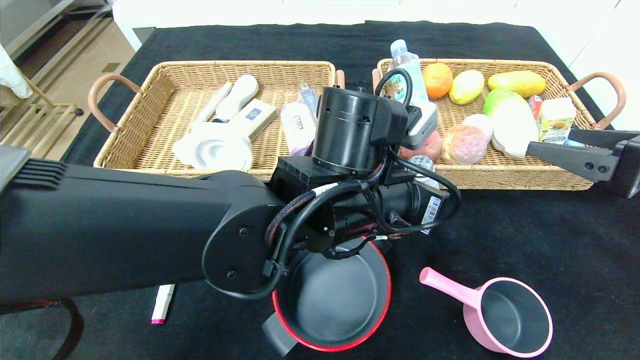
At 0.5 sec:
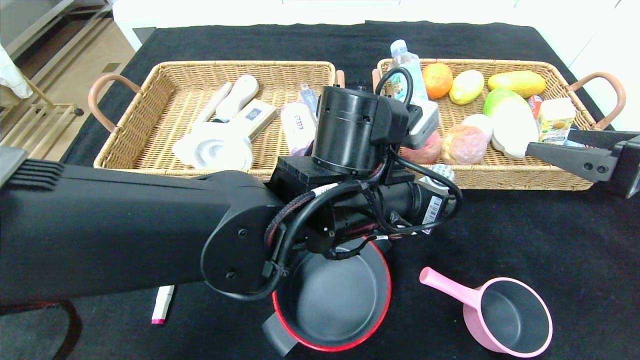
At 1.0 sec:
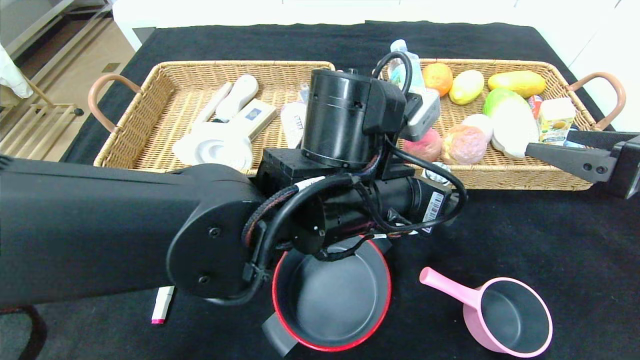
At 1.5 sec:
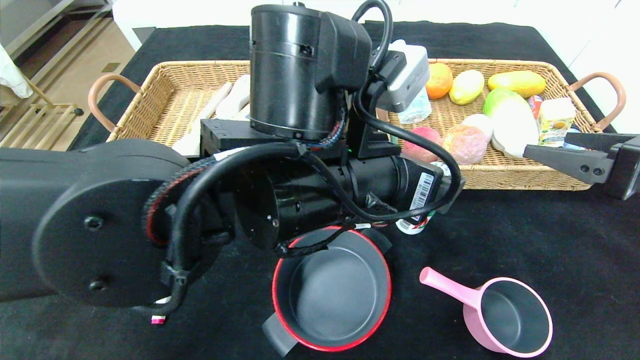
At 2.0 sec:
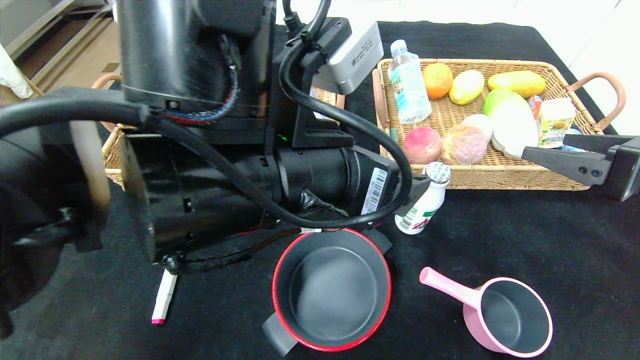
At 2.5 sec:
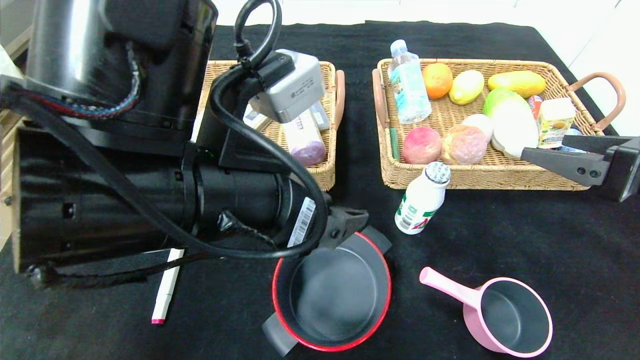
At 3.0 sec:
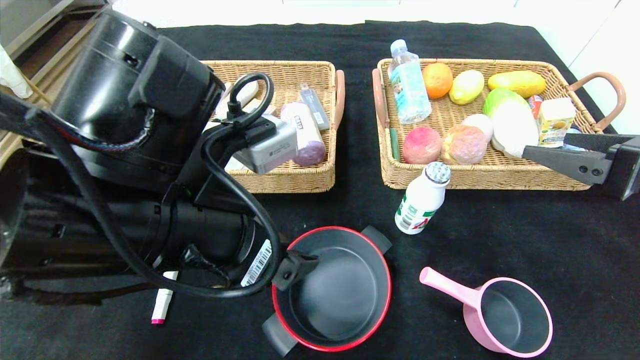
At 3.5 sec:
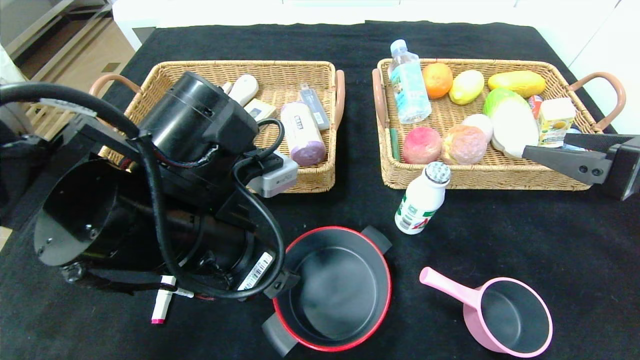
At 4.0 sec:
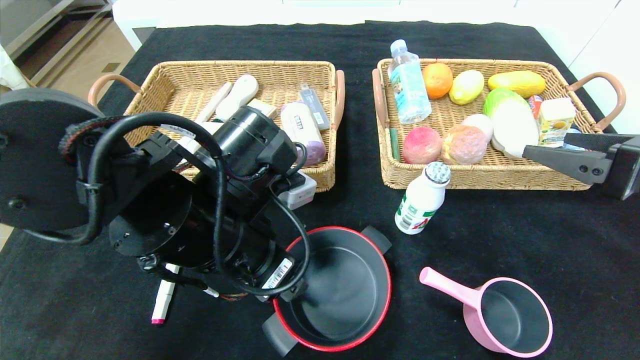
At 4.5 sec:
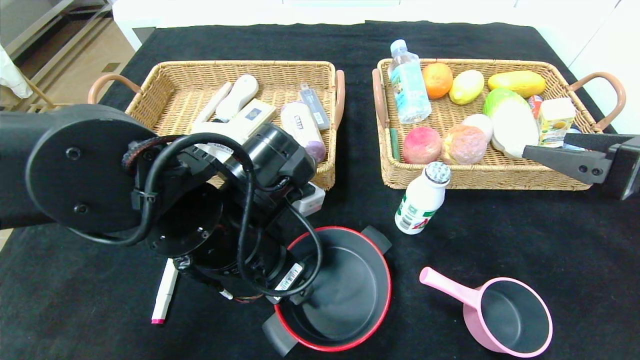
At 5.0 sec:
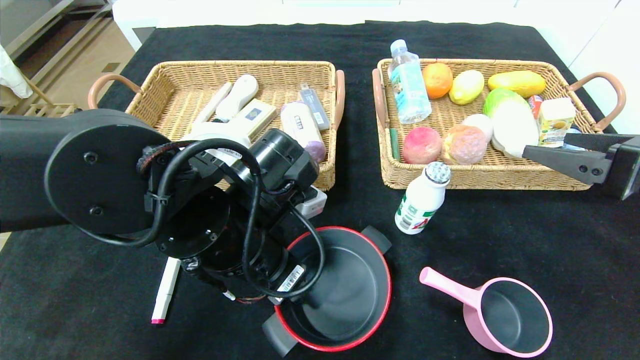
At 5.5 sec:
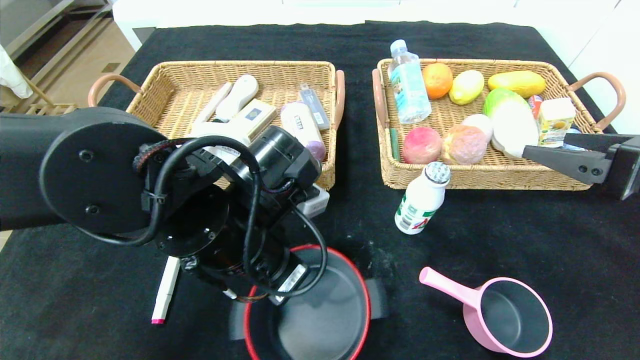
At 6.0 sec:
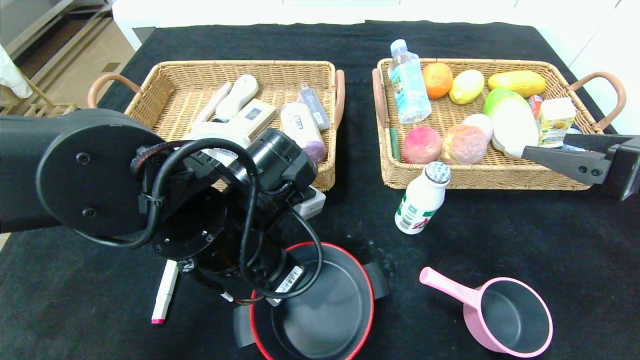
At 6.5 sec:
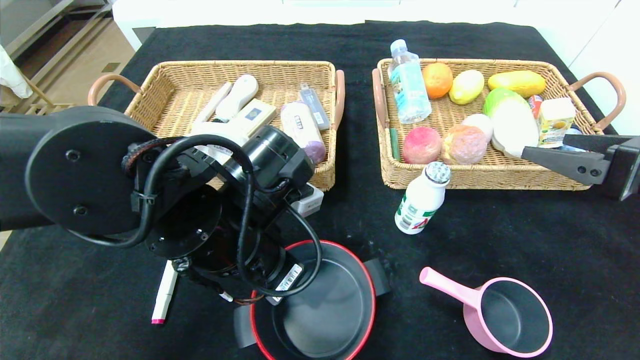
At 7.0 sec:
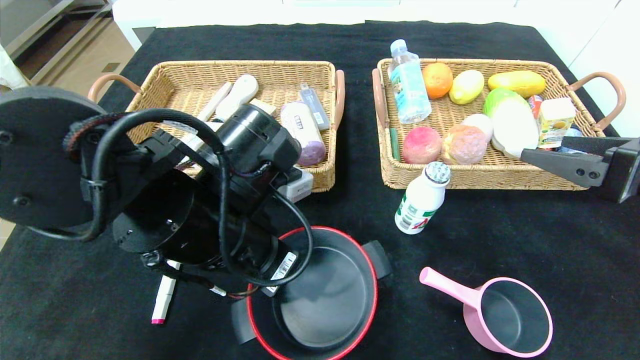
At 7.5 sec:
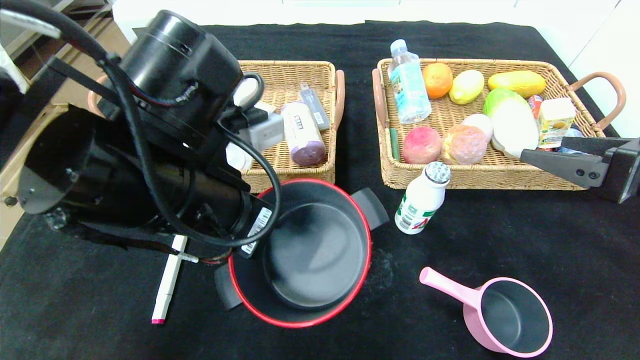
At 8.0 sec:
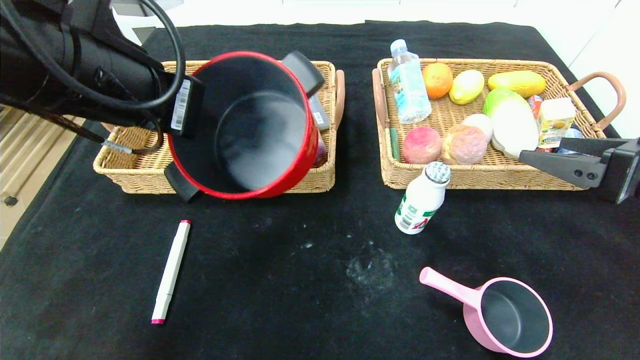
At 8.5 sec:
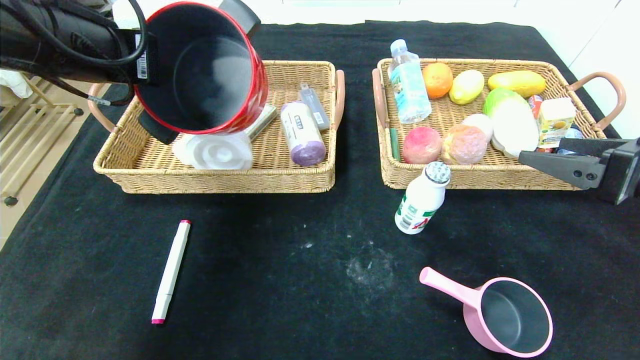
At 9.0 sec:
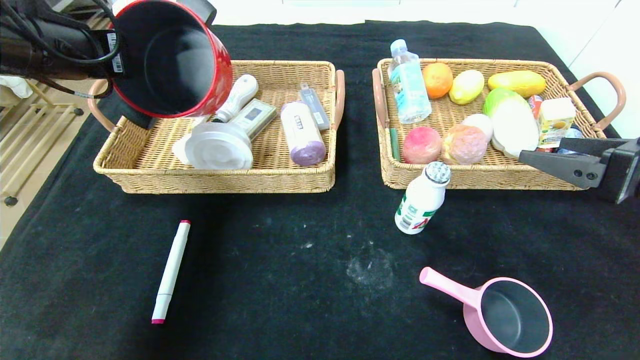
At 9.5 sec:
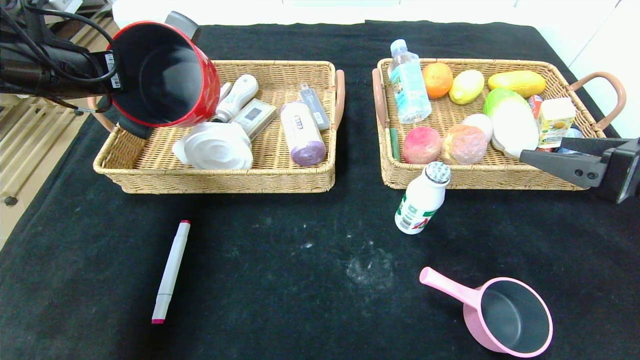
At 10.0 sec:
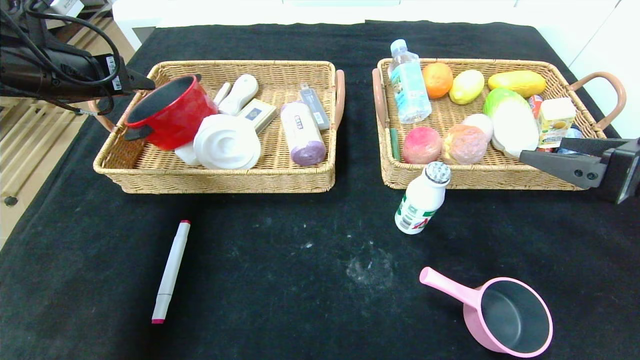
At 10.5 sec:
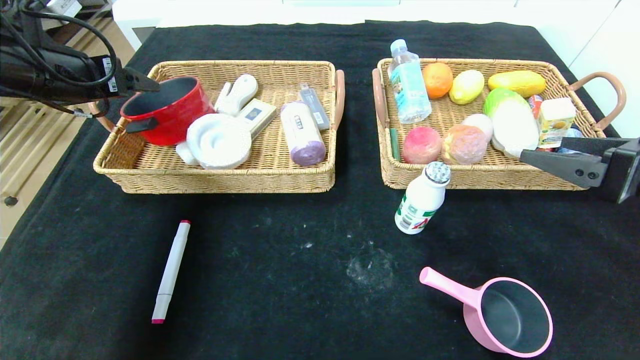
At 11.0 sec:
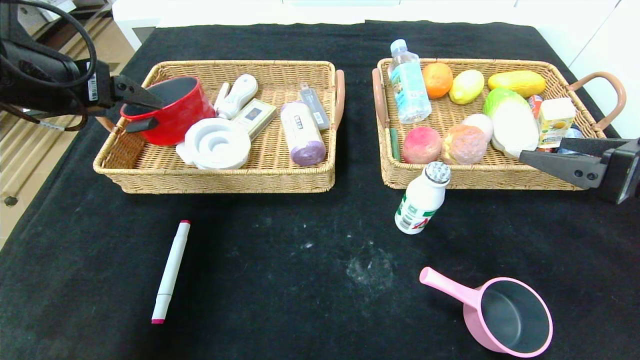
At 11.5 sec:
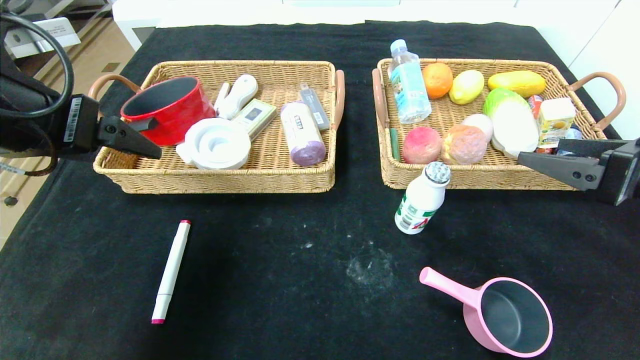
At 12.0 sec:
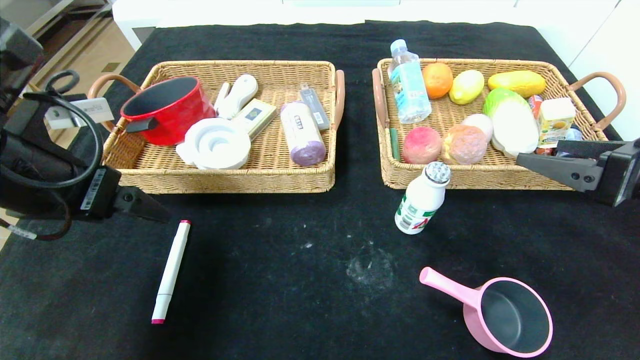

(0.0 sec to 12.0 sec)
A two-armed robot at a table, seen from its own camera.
Step, 0.0 sec - 2.0 sec: Place the ad milk in the center of the table.
Step, 2.5 sec - 11.5 sec: Pick up the red pot and put it in the left basket.
0.0 sec - 2.0 sec: The left gripper goes approximately 10 cm to the left, backward and upward, and opens.
2.0 sec - 4.0 sec: The left gripper goes some 5 cm downward.
4.0 sec - 6.0 sec: The left gripper closes.
6.0 sec - 8.0 sec: The left gripper moves upward and to the left, roughly 20 cm.
8.0 sec - 10.0 sec: The left gripper shifts roughly 20 cm to the left and forward, and opens its fingers.
10.0 sec - 12.0 sec: The left gripper travels backward, to the right and downward by some 15 cm, and opens its fingers.

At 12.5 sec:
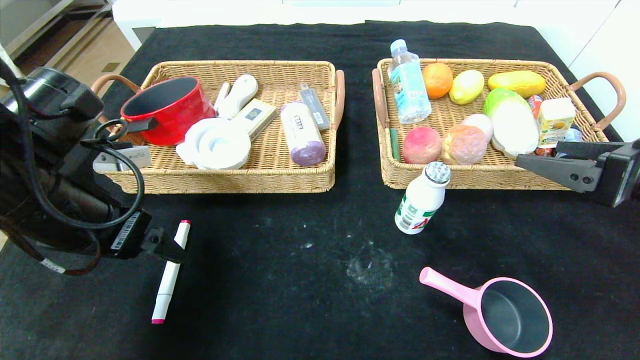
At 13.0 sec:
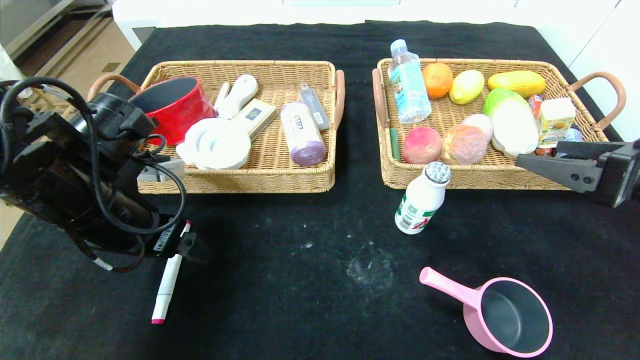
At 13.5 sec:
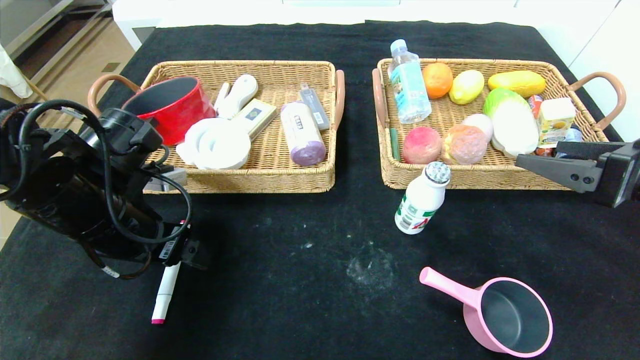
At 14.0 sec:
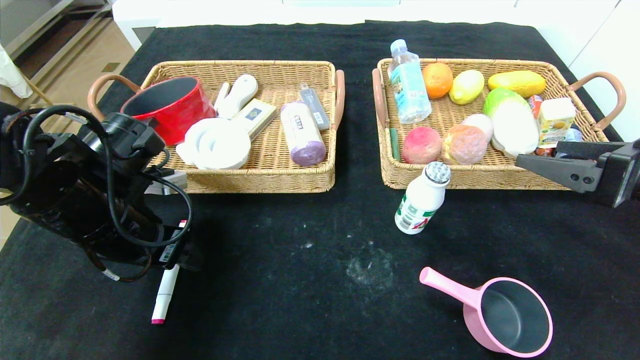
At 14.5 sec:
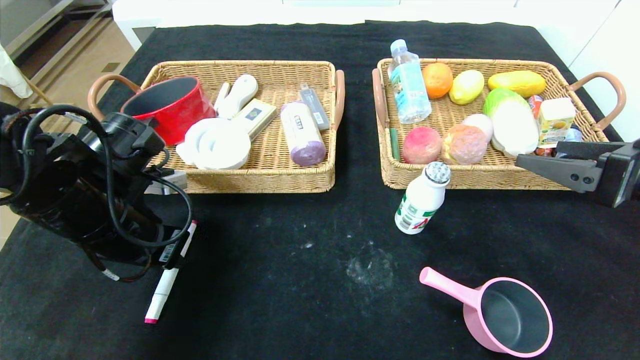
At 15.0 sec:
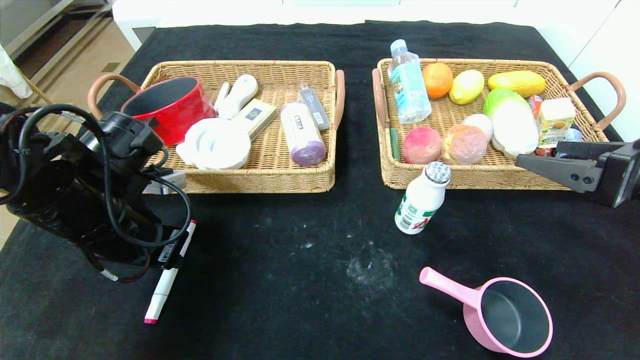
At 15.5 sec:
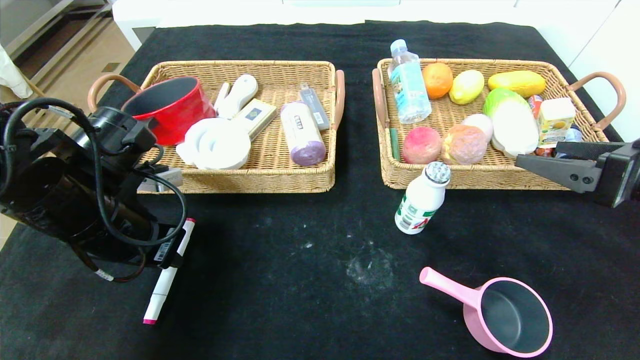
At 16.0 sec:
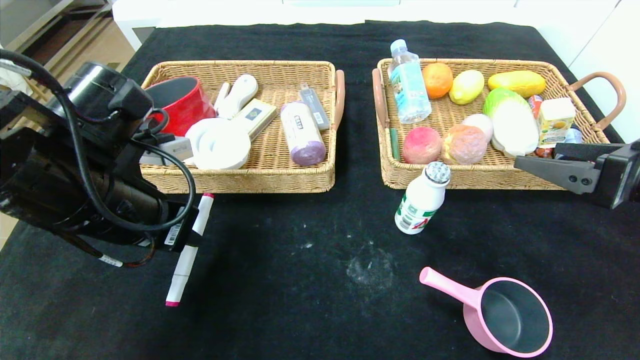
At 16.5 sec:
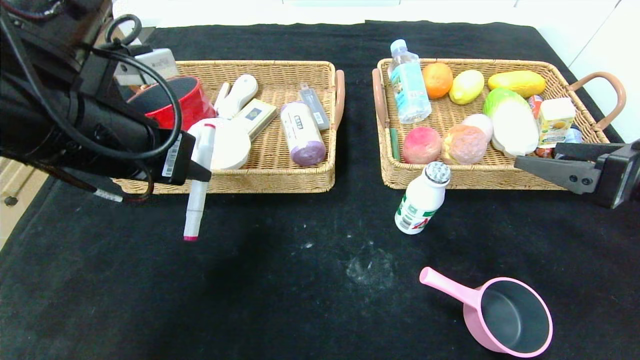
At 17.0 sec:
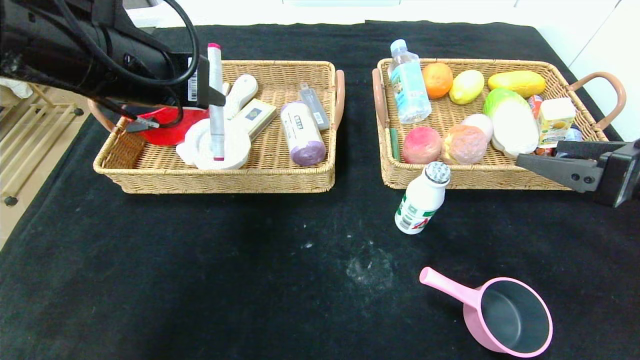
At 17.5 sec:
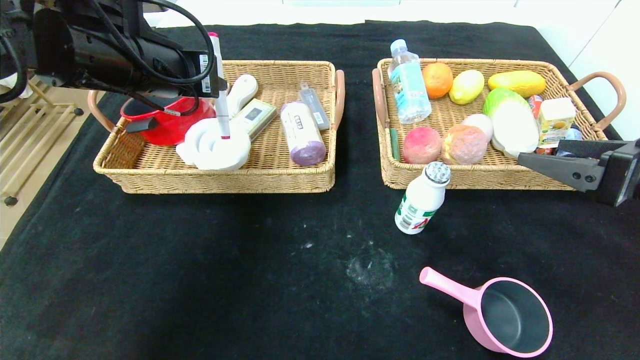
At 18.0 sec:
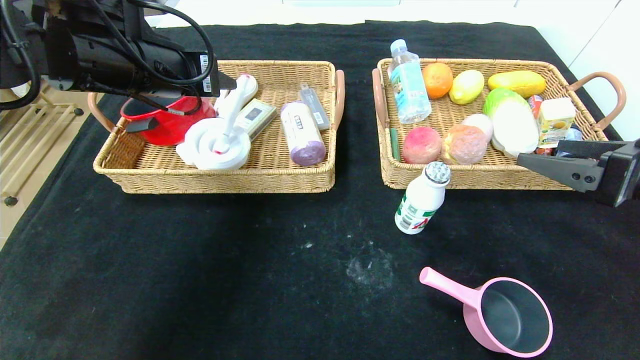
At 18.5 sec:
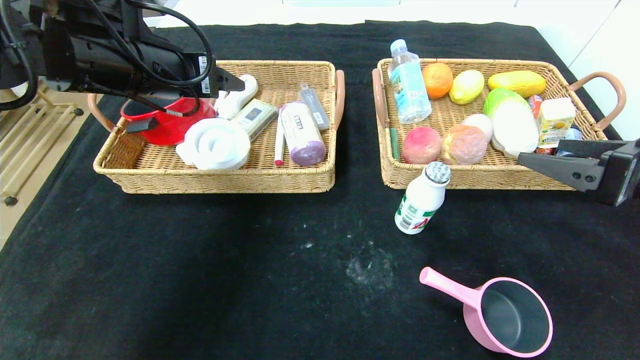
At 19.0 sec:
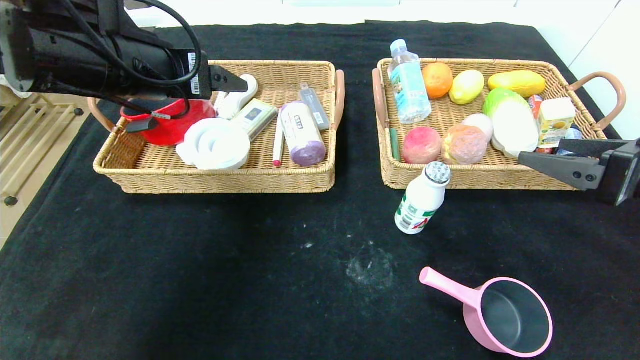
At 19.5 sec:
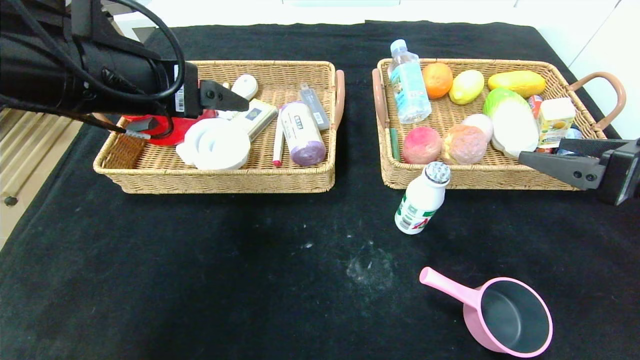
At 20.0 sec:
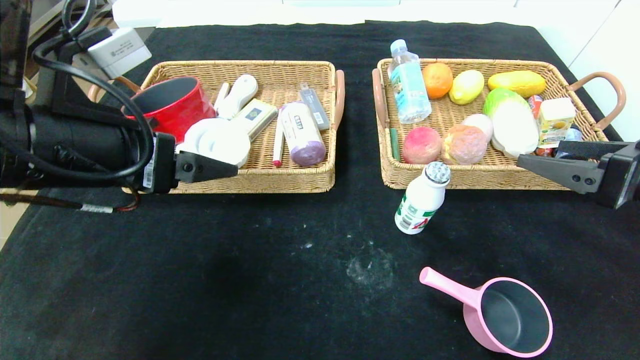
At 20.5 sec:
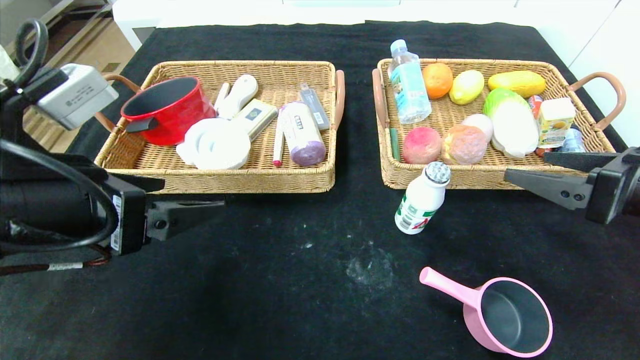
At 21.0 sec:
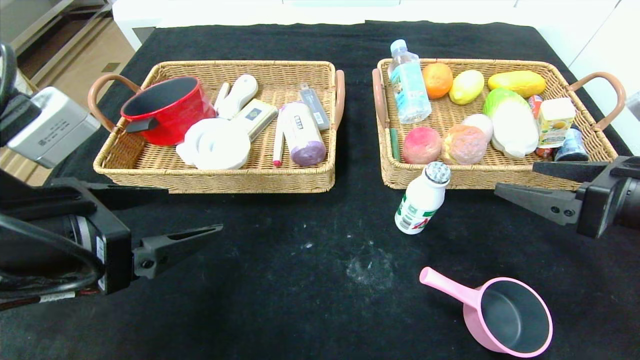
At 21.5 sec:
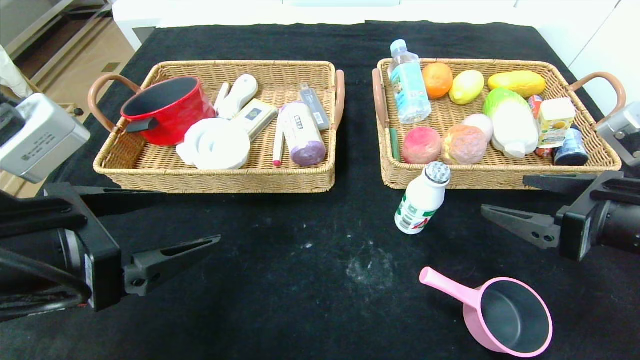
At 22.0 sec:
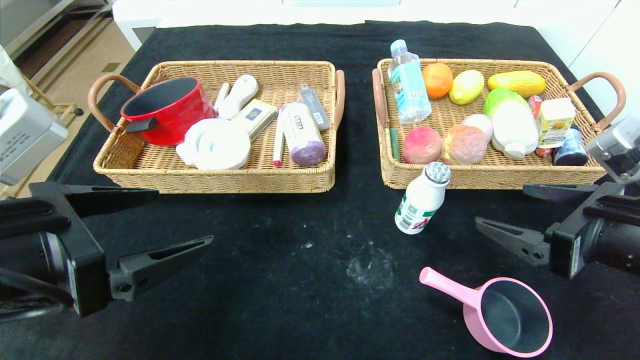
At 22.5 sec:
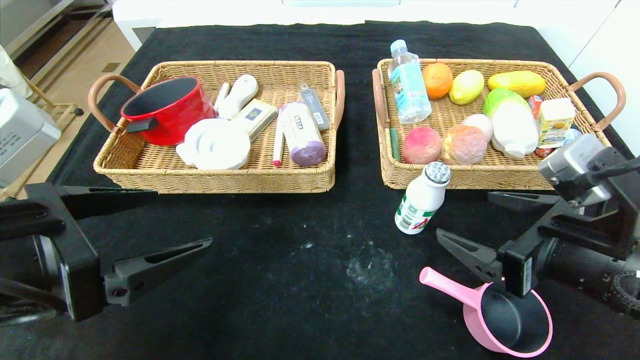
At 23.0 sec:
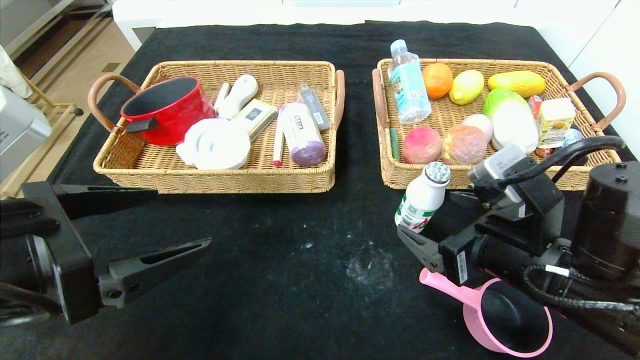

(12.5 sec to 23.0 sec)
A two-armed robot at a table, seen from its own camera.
Step, 12.5 sec - 20.5 sec: Pick up the pink marker and put it in the left basket.
12.5 sec - 14.5 sec: The left gripper shifts by roughly 5 cm, and closes up.
14.5 sec - 16.5 sec: The left gripper travels upward by approximately 10 cm.
16.5 sec - 19.0 sec: The left gripper heads forward, covering about 5 cm, and opens up.
19.0 sec - 21.0 sec: The left gripper travels backward and downward by approximately 15 cm.
21.0 sec - 23.0 sec: The right gripper moves to the left and downward, about 15 cm.
